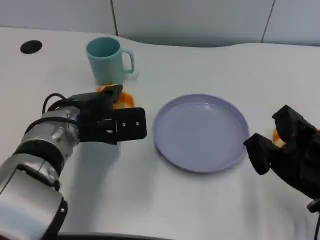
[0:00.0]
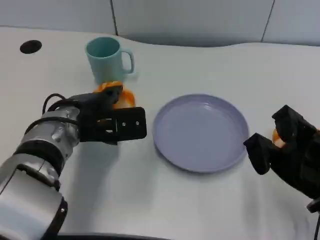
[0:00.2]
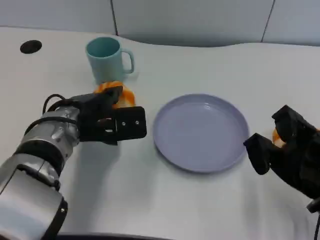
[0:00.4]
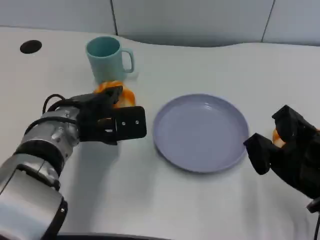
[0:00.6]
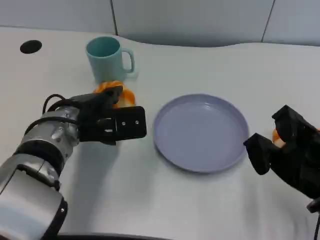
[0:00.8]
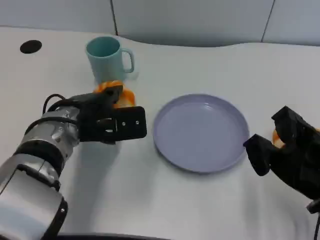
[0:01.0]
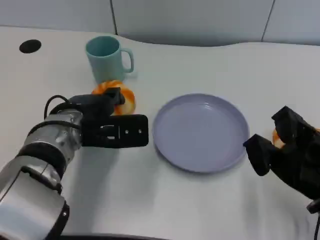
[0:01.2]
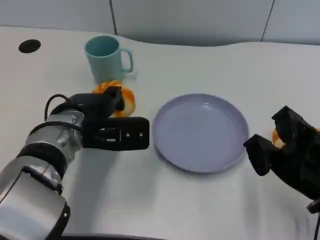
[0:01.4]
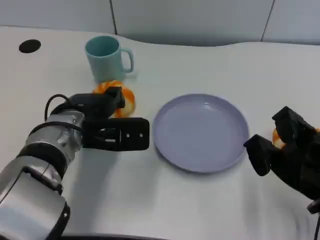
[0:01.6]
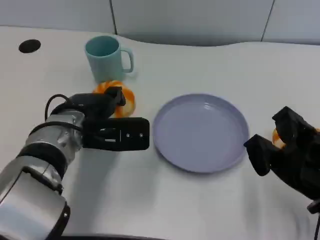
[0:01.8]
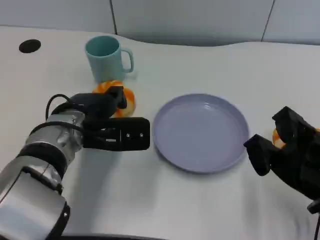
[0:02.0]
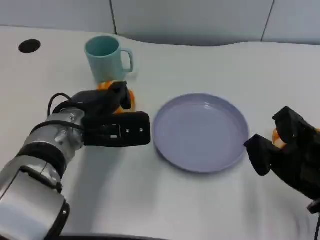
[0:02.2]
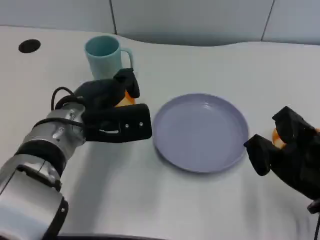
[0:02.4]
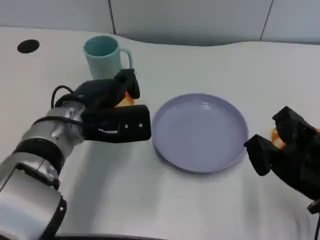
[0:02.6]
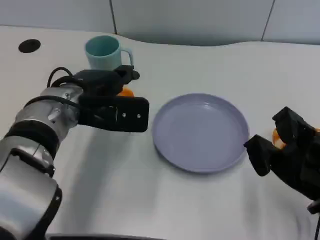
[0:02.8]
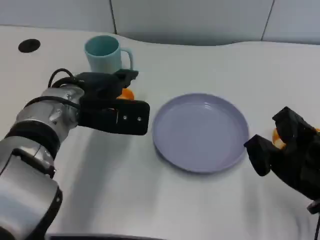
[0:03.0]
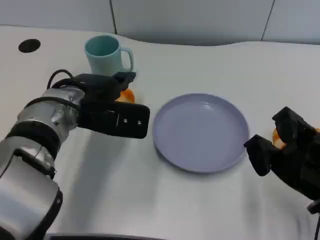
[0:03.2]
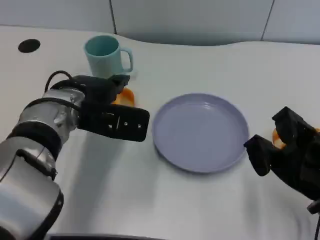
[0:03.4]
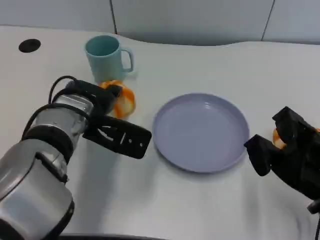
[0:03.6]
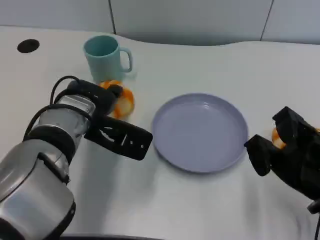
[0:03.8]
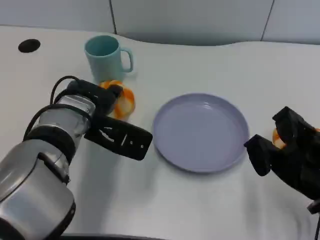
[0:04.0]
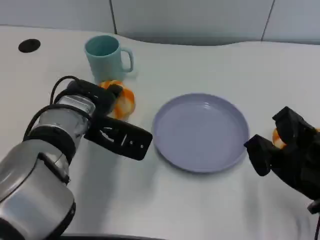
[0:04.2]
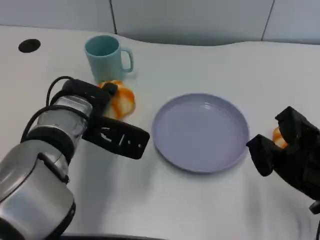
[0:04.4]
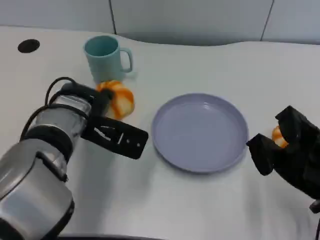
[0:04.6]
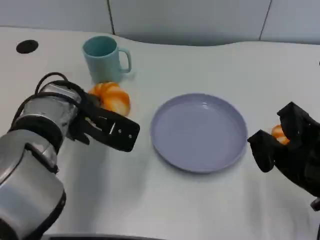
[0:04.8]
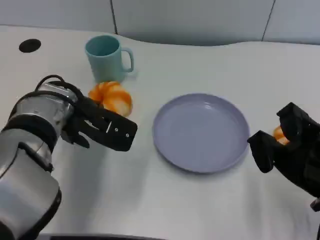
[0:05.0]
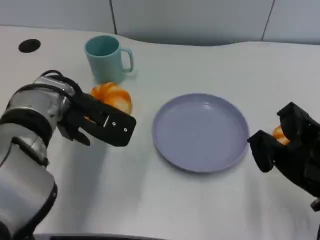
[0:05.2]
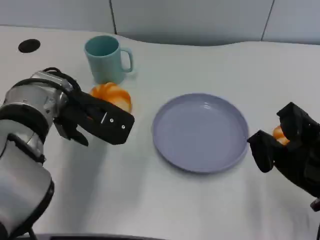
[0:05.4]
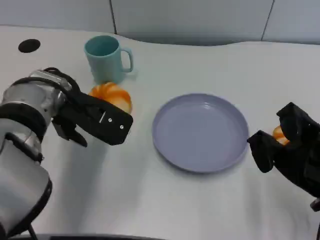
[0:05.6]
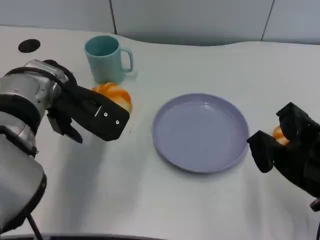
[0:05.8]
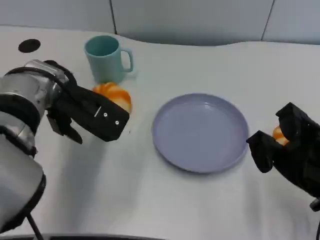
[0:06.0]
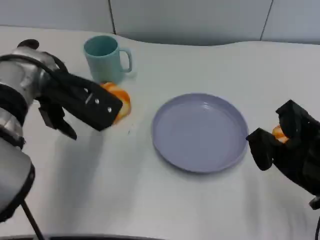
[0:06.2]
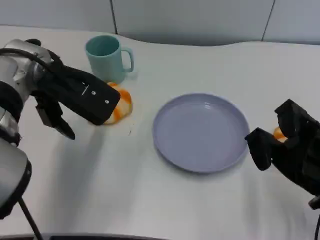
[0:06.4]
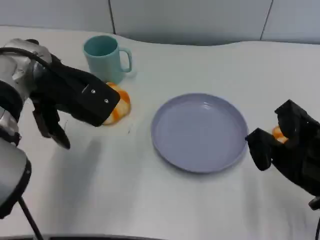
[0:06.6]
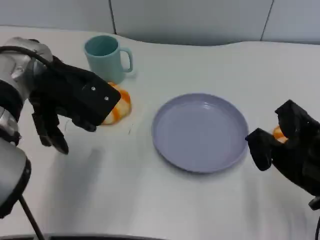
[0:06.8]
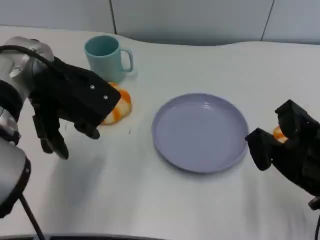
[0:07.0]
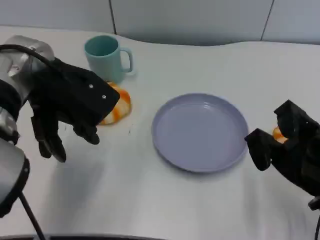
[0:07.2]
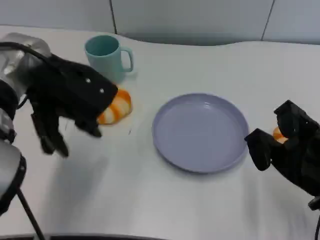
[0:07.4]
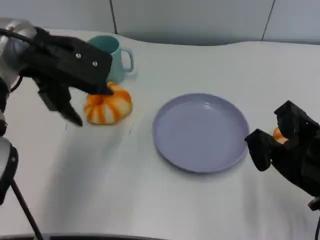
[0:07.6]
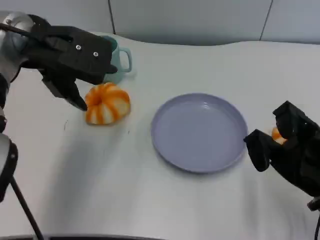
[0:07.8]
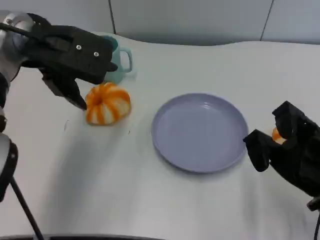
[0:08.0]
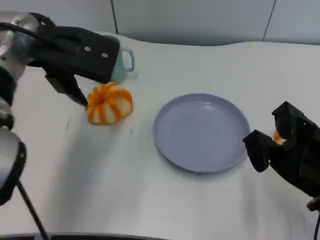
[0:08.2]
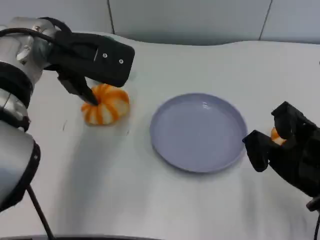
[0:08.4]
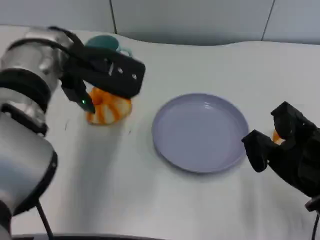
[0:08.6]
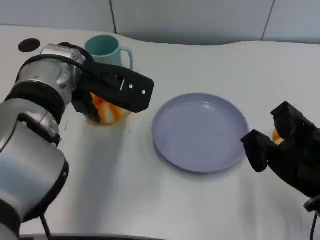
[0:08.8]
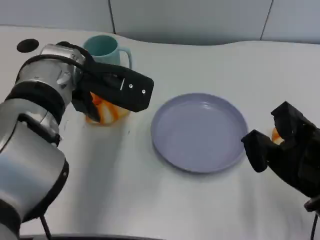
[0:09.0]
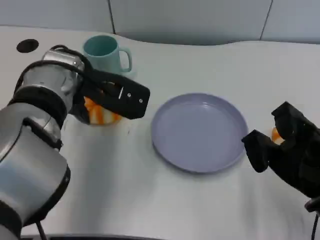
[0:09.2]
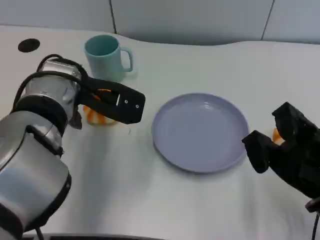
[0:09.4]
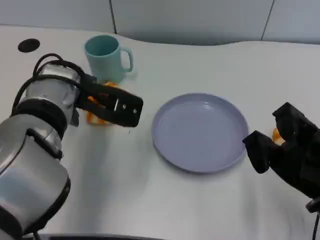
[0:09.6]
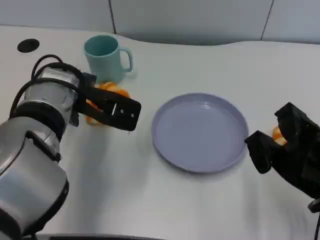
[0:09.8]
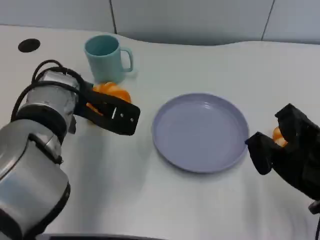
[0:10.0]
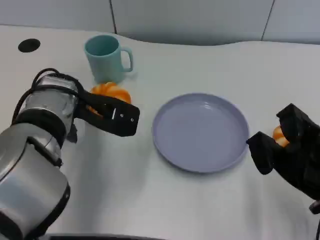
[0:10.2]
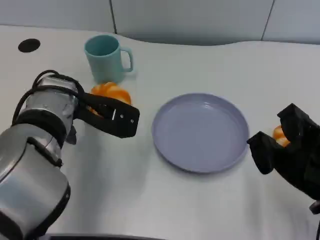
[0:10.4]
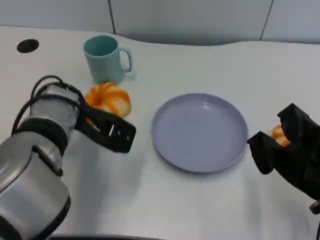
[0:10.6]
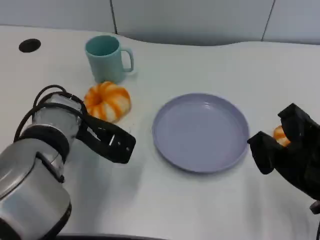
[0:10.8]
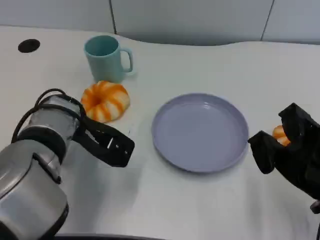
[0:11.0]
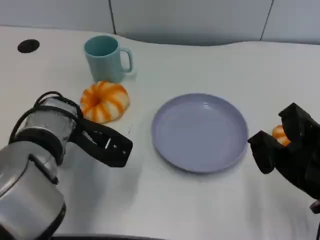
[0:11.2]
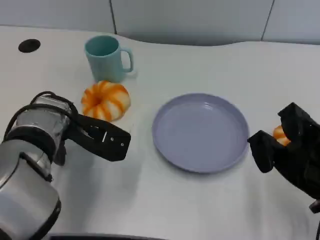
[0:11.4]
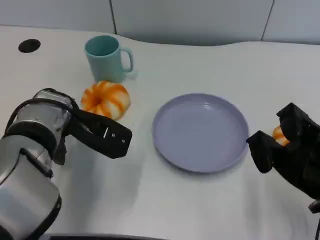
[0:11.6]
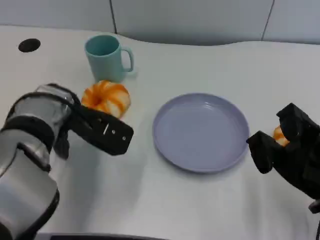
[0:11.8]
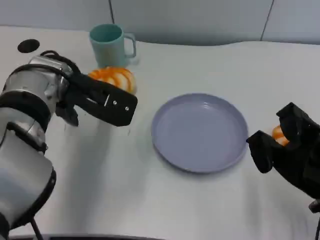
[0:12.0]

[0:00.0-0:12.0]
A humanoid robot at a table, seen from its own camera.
Task of the whole recording: Grasp the bread from the table and place it into the plate.
0:00.0 to 0:03.0: The hands stay close to where they were, moving slightly.
0:04.4 to 0:06.0: The left hand heads upward, covering about 5 cm.
0:06.0 to 0:07.6: The left hand moves upward, roughly 5 cm.
0:07.6 to 0:09.0: The left hand ends up about 5 cm from where it was.
0:10.4 to 0:12.0: There are only small adjustments of the hands.

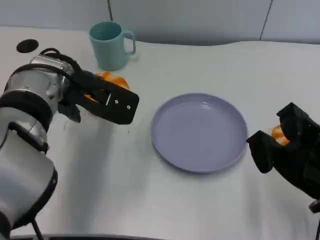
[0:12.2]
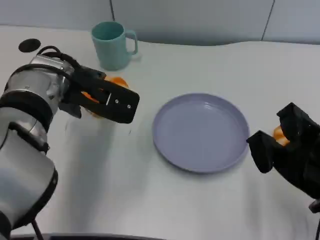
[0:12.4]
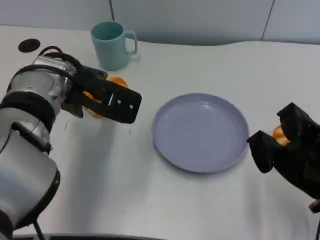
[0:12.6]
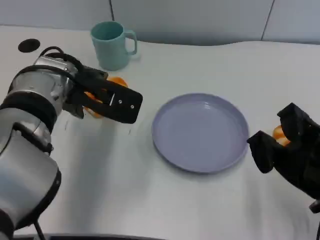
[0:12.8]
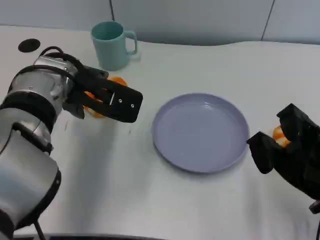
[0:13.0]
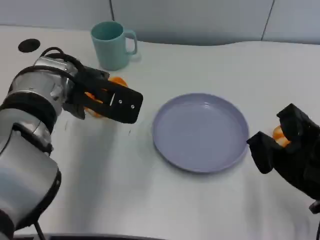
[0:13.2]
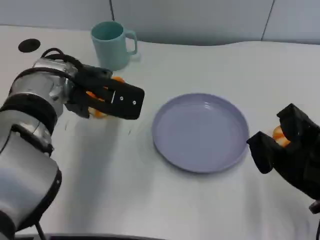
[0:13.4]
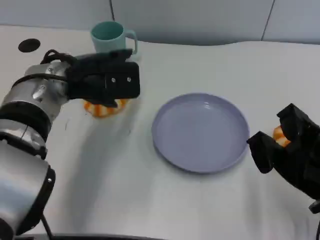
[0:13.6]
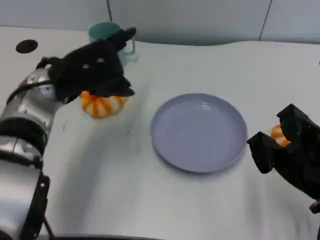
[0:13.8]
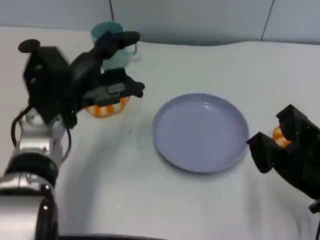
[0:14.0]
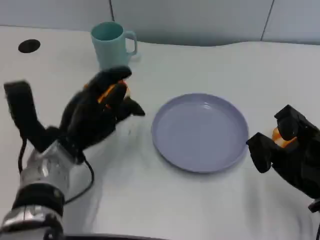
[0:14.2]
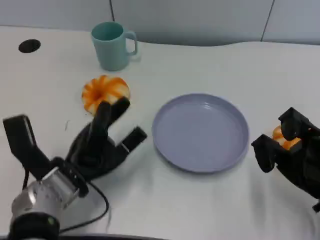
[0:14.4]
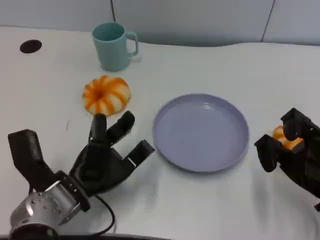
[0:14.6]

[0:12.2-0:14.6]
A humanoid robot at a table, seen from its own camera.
Task of the whole recording: Grasp the bread from the table and place it into the plate.
0:12.2 to 0:13.4: The hands stay close to where they were, moving slightly.
0:13.4 to 0:14.6: The left hand is displaced downward and backward by approximately 20 cm.

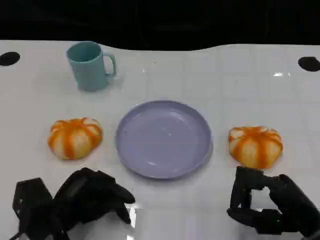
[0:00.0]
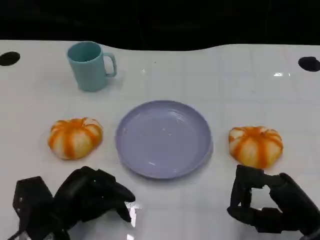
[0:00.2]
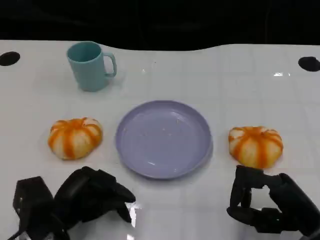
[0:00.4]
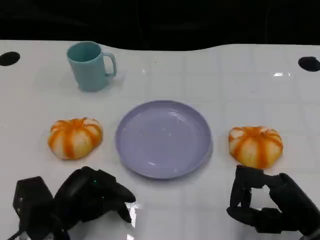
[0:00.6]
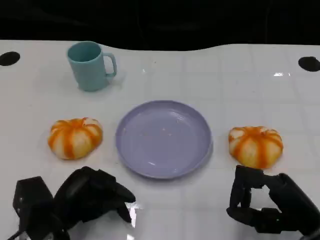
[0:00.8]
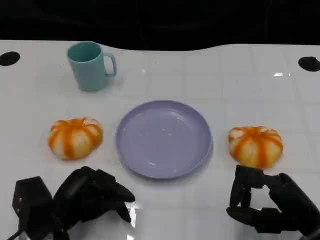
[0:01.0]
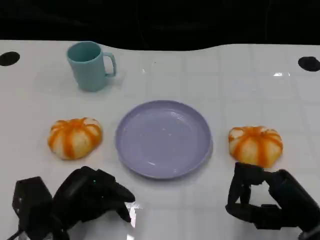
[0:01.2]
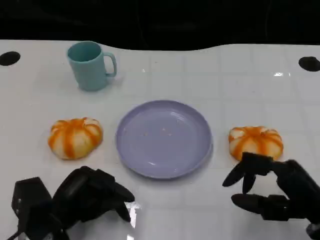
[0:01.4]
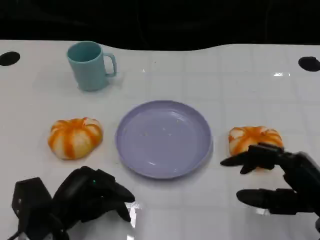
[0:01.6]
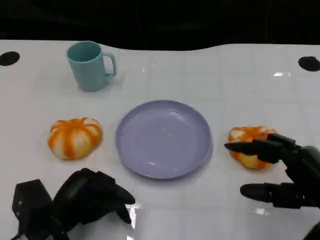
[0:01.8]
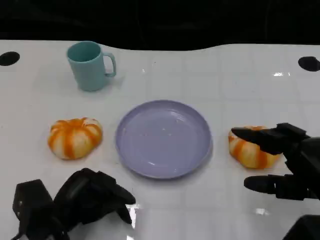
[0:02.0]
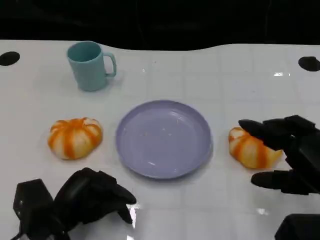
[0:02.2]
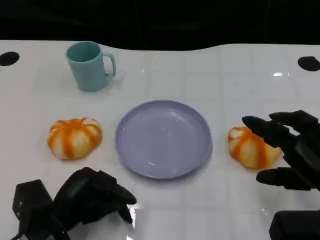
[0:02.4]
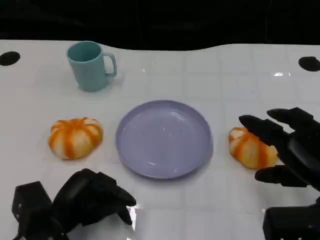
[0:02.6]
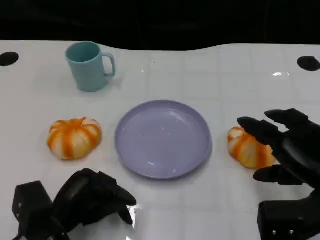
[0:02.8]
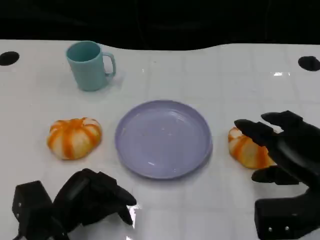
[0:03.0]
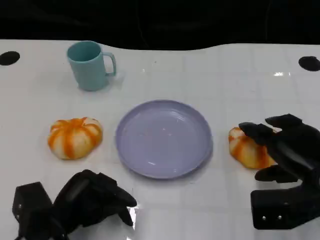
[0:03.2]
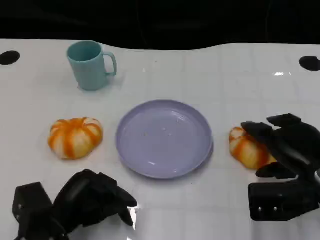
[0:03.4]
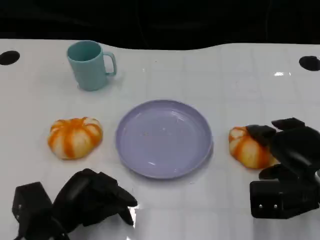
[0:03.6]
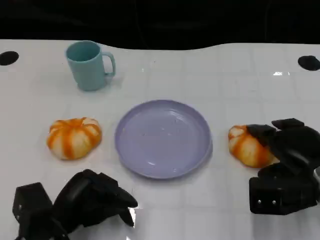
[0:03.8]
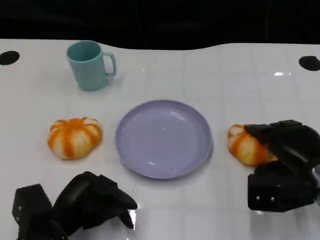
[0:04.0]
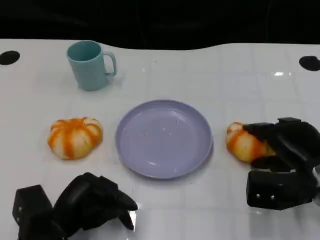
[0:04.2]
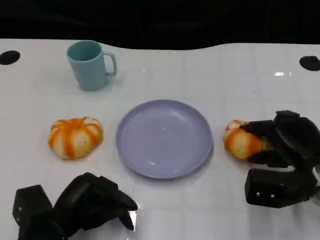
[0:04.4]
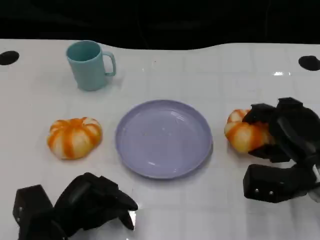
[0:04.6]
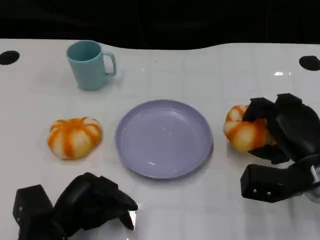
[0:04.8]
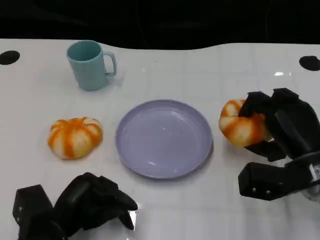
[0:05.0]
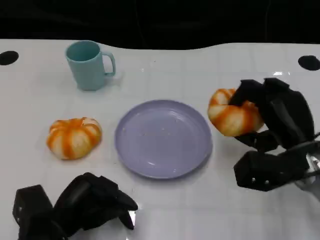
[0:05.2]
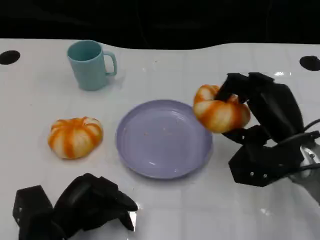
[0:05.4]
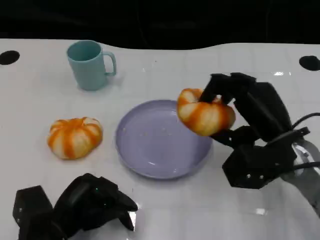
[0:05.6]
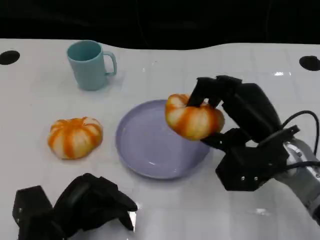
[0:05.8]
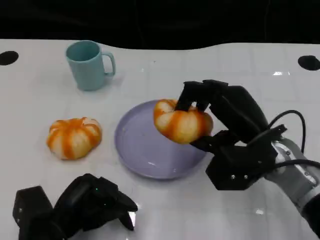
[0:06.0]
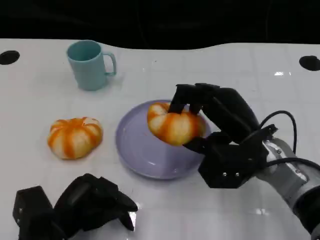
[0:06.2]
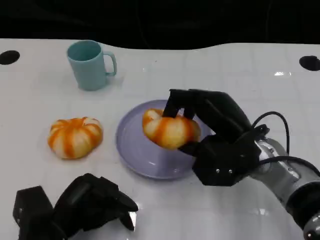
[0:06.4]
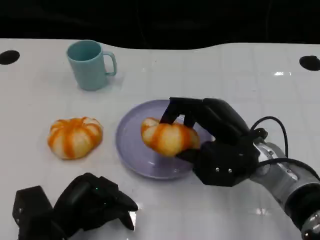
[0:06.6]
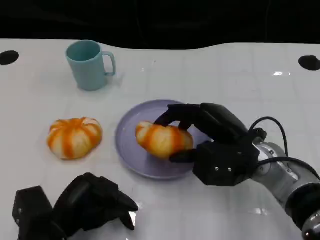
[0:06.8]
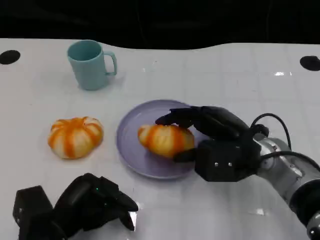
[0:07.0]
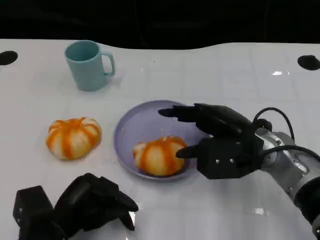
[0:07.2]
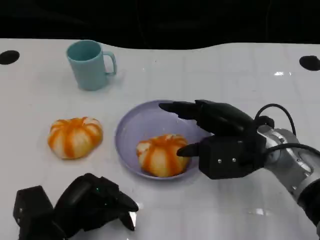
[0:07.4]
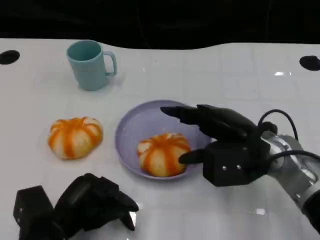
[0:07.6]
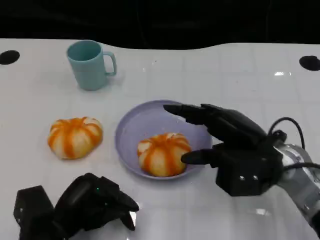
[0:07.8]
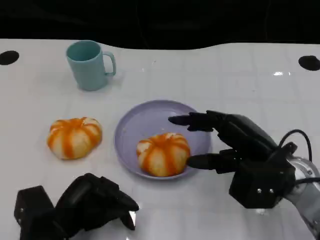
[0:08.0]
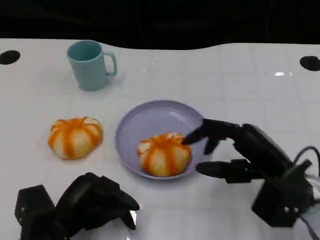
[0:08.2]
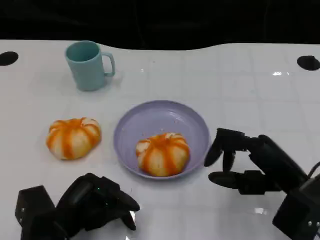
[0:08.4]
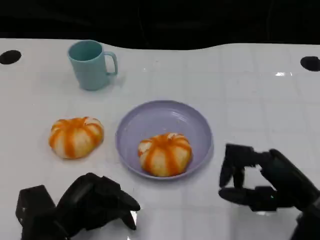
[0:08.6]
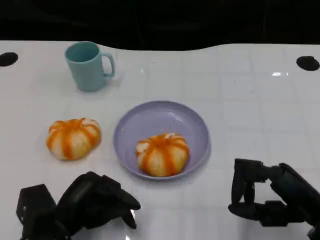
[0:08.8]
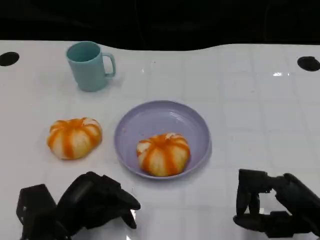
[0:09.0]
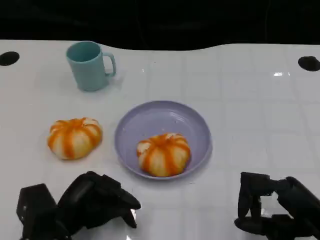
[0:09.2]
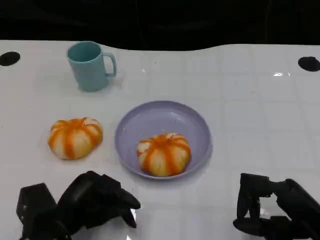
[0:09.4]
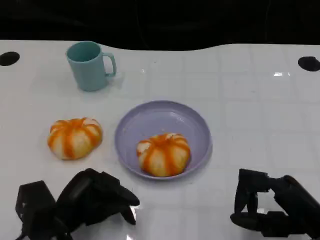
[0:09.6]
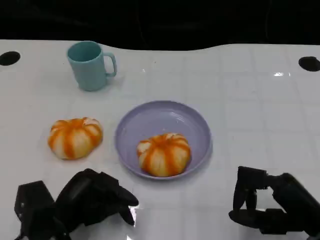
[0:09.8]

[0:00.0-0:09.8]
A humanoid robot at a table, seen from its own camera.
Task of the whole recording: Grasp the bread from the table and place it into the plate.
0:00.0 to 0:01.4: The hands move only a little.
0:02.8 to 0:04.2: The right hand is displaced forward and downward by about 5 cm.
0:04.2 to 0:05.6: The right hand travels to the left and upward by roughly 10 cm.
0:07.0 to 0:08.4: The right hand heads backward and to the right, covering about 10 cm.
0:08.4 to 0:09.8: The right hand moves some 5 cm.
